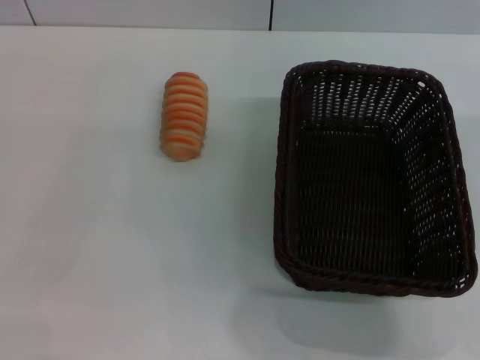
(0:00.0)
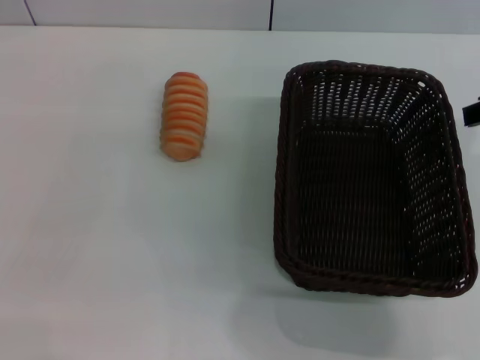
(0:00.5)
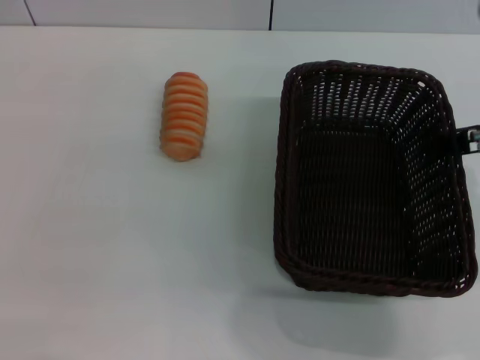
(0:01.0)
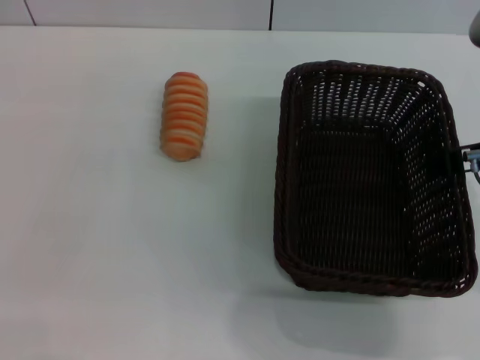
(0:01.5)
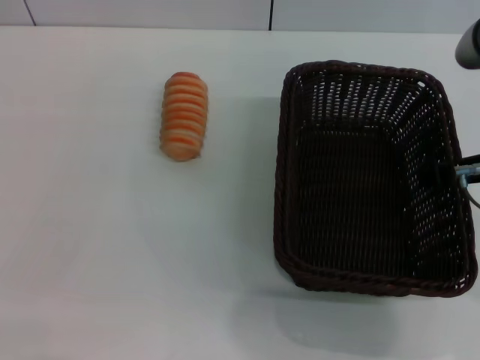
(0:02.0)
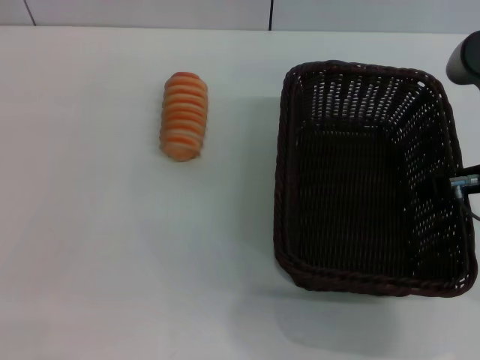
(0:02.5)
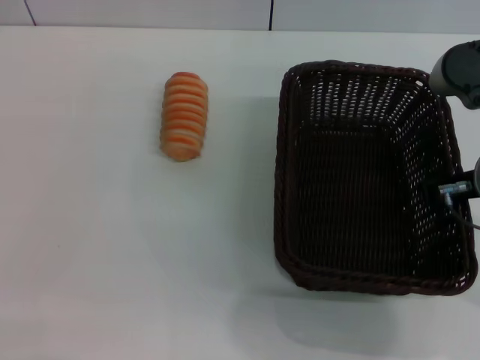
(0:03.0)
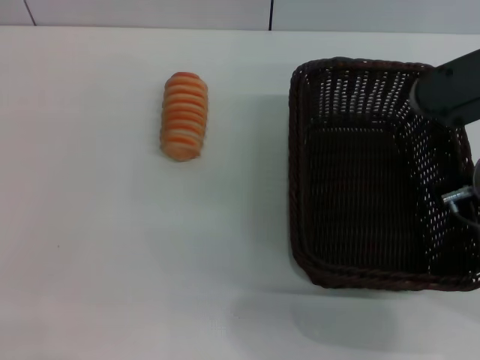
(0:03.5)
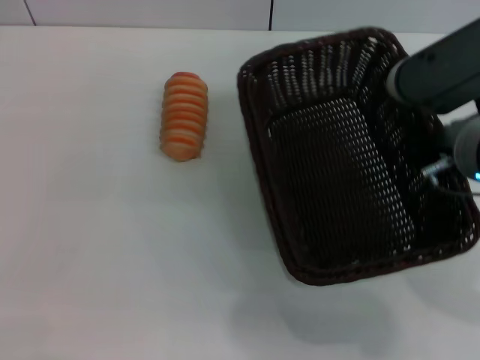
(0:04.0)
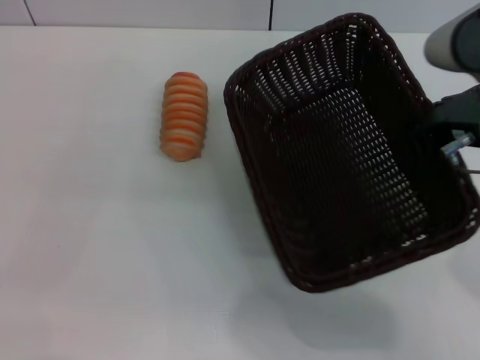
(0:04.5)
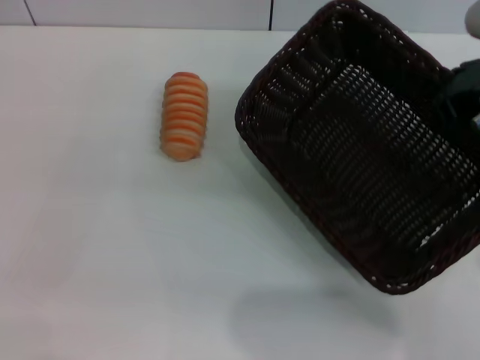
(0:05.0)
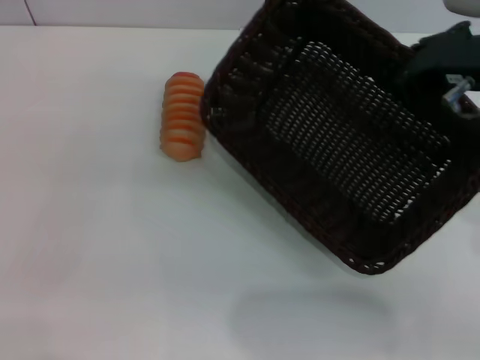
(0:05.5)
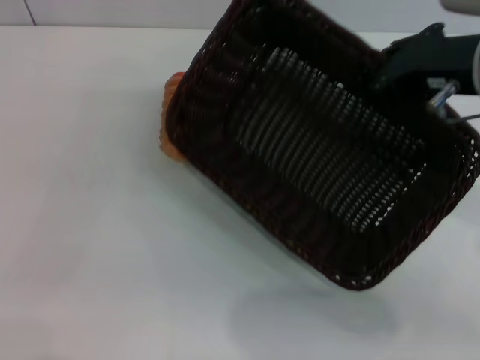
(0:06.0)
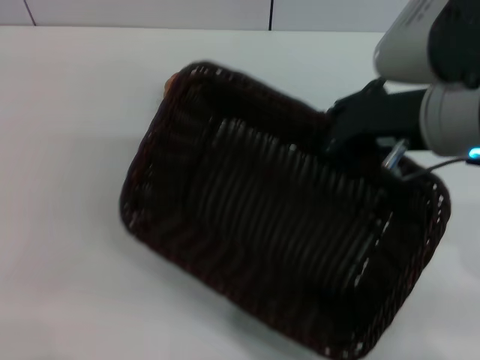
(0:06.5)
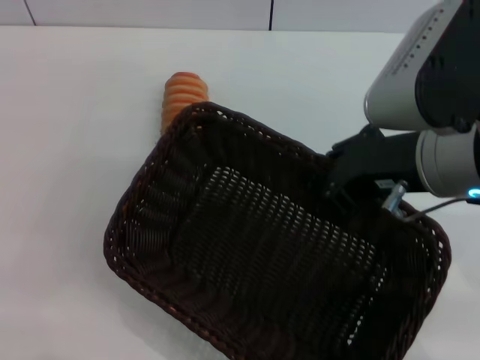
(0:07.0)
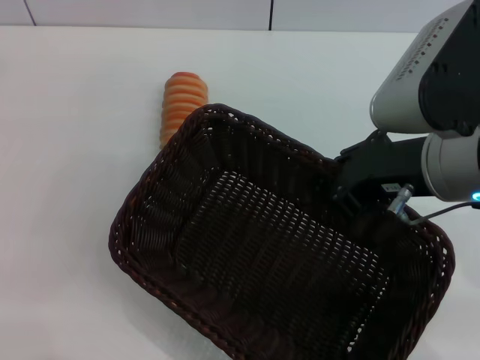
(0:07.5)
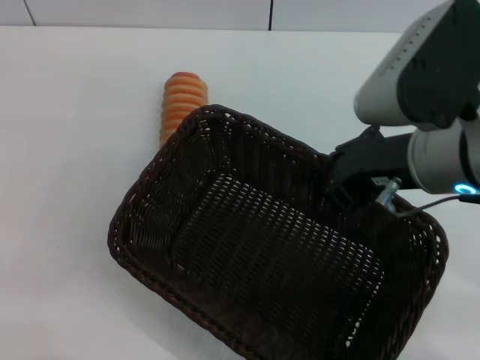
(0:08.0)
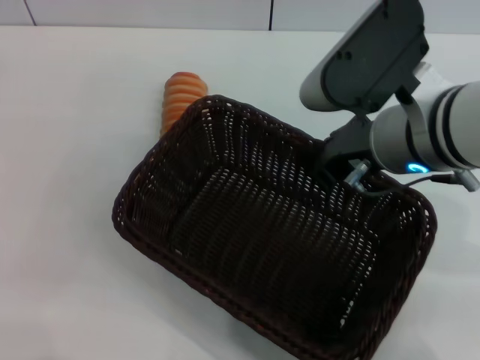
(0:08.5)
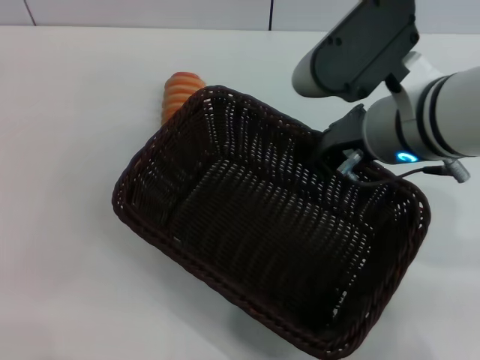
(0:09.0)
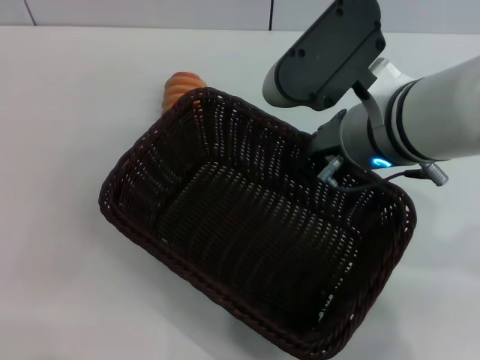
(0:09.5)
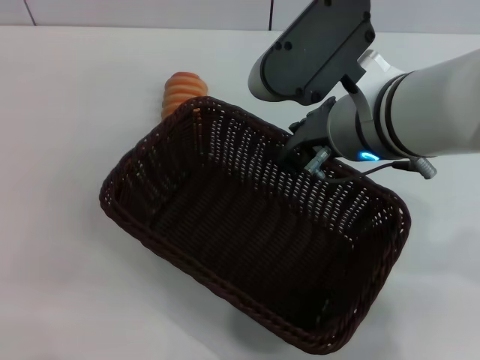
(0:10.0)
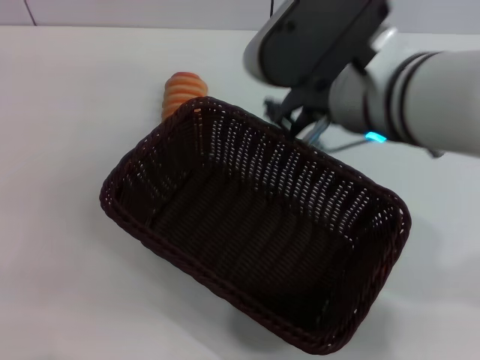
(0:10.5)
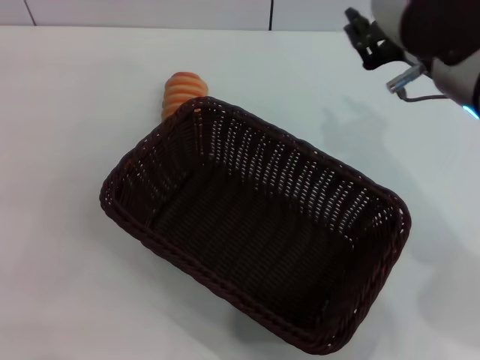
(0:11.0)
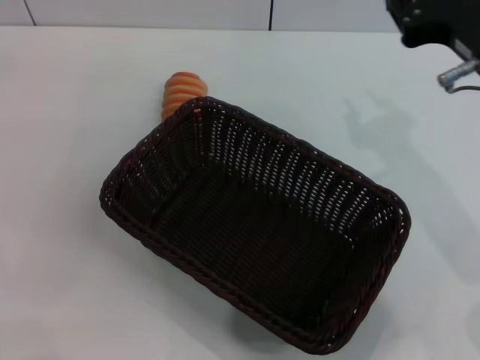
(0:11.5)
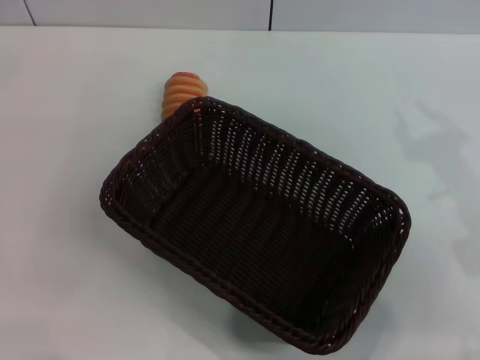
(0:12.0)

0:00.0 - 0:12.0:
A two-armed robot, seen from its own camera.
Step, 0:00.0 - 0:05.5: Pick up the dark basket with the right gripper.
Step, 0:06.0 - 0:10.0: Place the dark basket in the center of view with the right gripper.
0:00.0 - 0:02.0: The right gripper travels downward by some 10 cm.
0:02.0 - 0:04.0: The right gripper closes up.
0:04.0 - 0:06.0: The right gripper travels upward by roughly 5 cm.
0:06.0 - 0:08.0: The right gripper changes place by about 5 cm.
0:08.0 - 0:10.0: The right gripper goes roughly 5 cm to the left, and opens.
0:10.0 - 0:12.0: The right gripper shifts about 15 cm to the right.

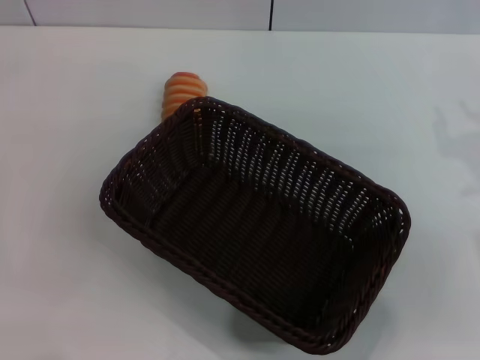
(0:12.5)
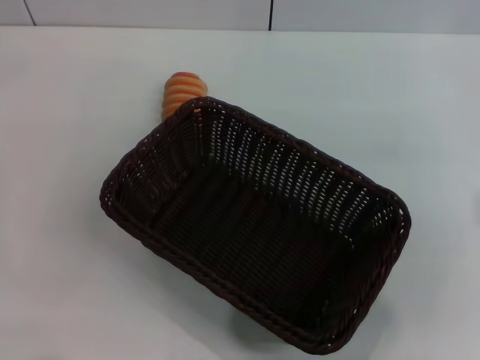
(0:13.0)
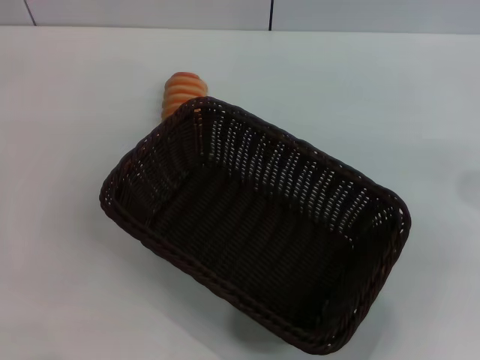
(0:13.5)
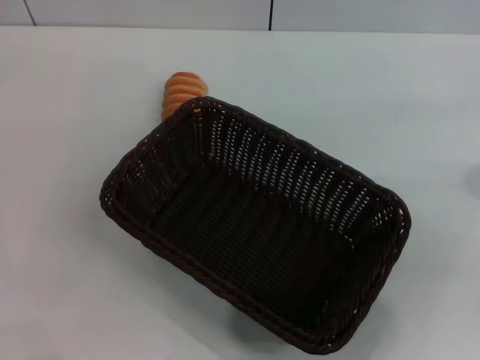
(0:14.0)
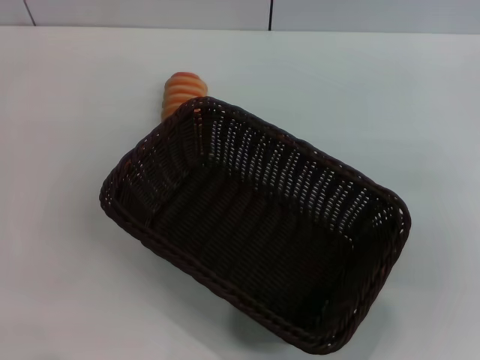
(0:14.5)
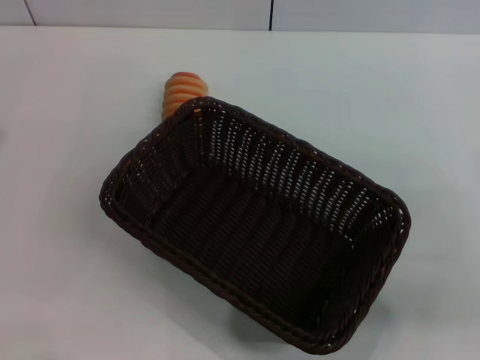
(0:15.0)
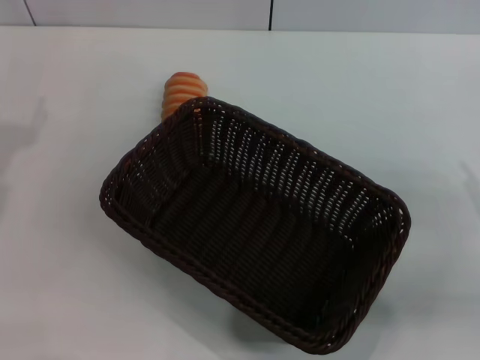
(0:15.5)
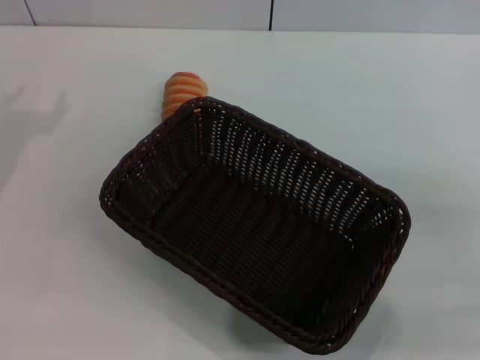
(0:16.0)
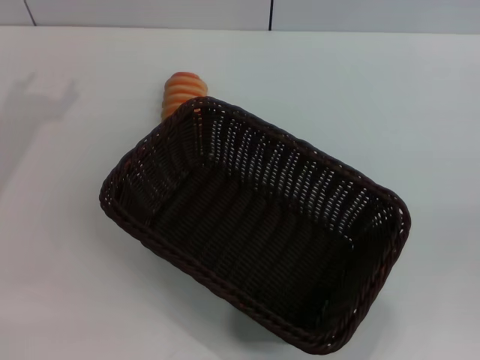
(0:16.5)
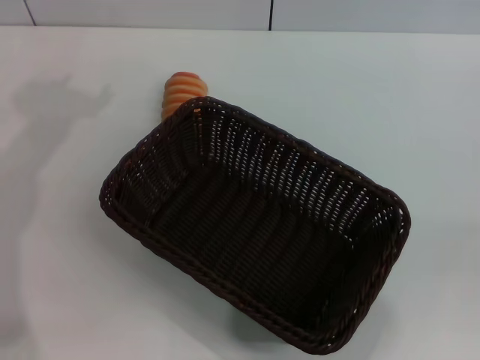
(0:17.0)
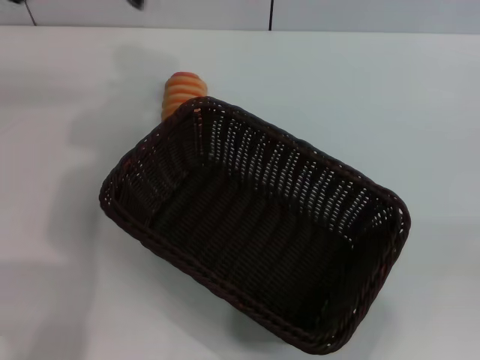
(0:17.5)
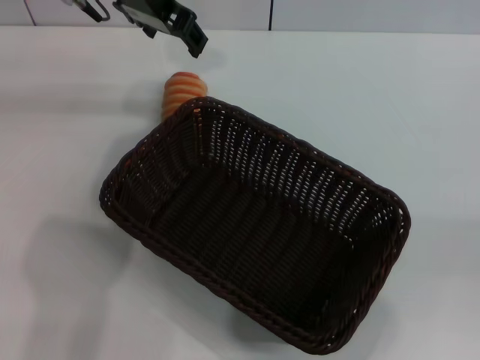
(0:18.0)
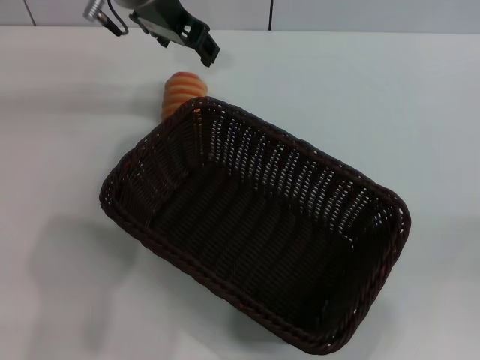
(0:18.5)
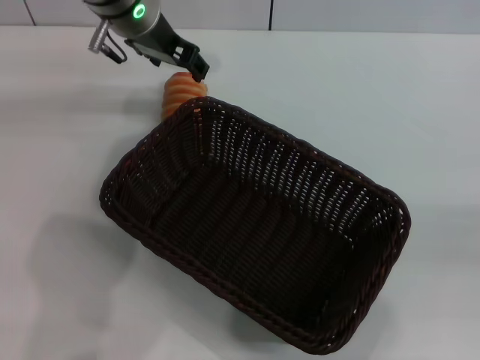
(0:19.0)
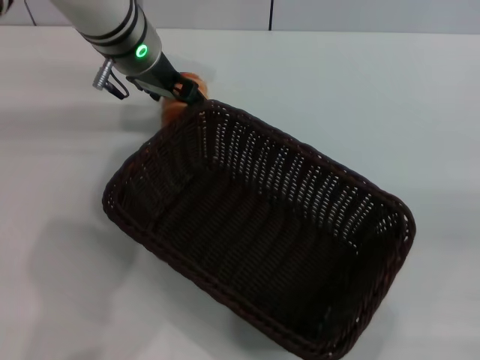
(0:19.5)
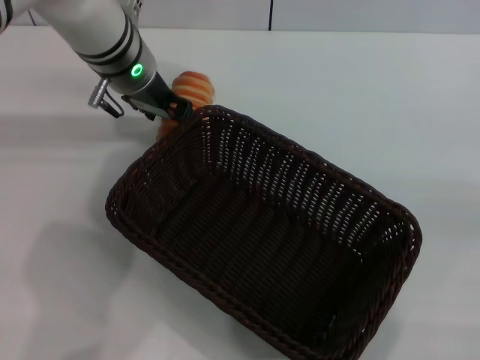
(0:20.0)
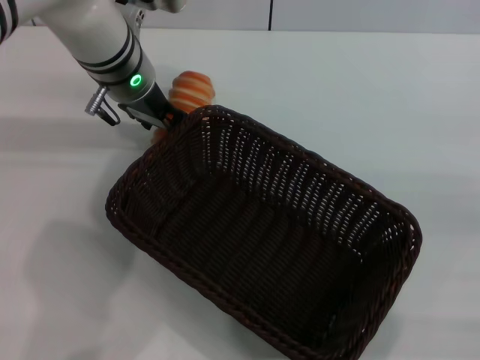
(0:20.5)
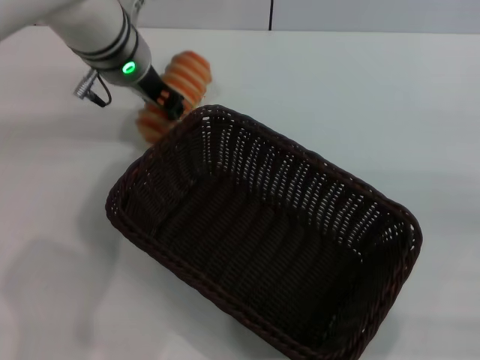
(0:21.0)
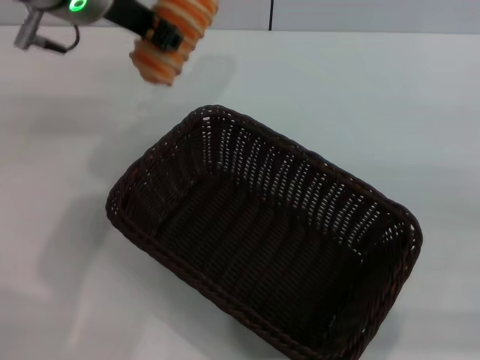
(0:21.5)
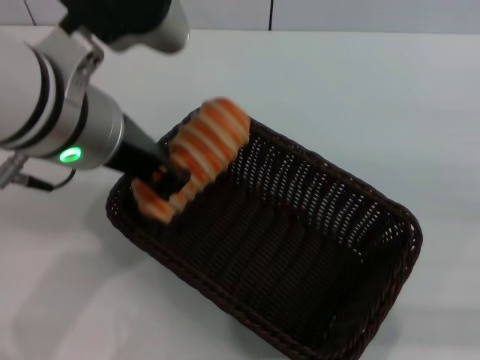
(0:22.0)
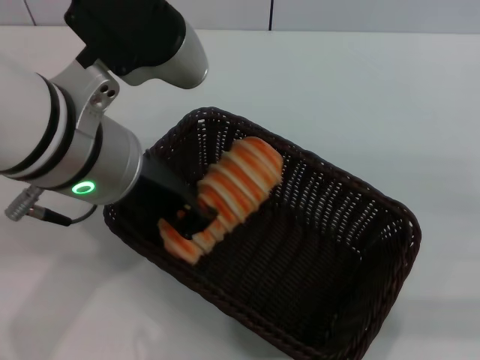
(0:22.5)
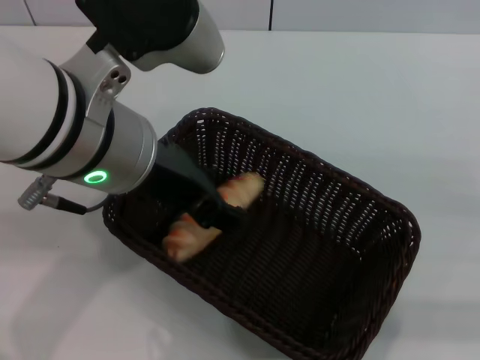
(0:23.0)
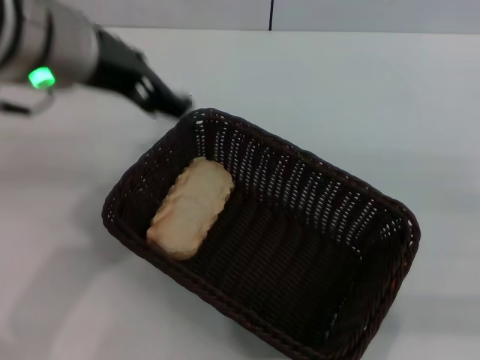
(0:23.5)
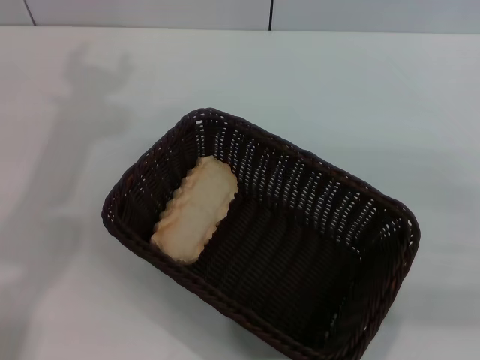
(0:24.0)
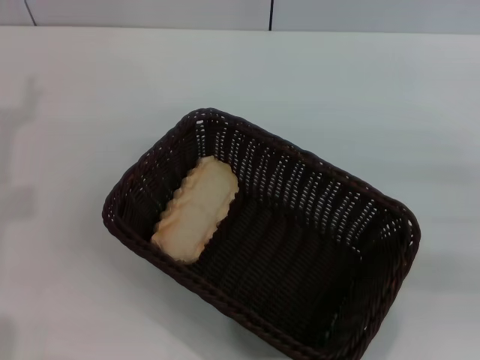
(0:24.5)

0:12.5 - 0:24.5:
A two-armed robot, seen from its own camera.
Step, 0:12.5 - 0:21.0: Pick up the long bread with the left gripper.
Step, 0:21.5 - 0:23.0: Place the long bread into the dark basket with the left gripper.
0:16.5 - 0:18.5: The left gripper goes approximately 25 cm to the right and forward.
0:18.5 - 0:20.5: The right gripper heads forward, covering roughly 5 cm. Meanwhile the left gripper travels downward by about 10 cm.
0:20.5 - 0:22.5: The left gripper shifts some 20 cm backward and upward, and closes its fingers.
0:22.5 - 0:24.5: The left gripper is displaced to the left by approximately 20 cm, and opens up.
